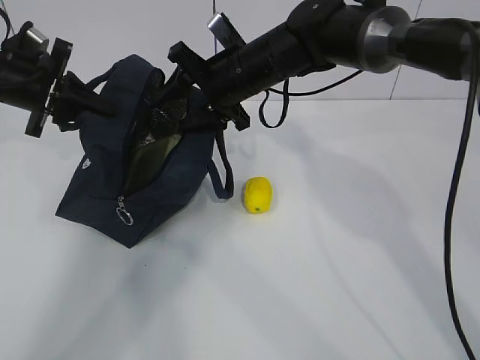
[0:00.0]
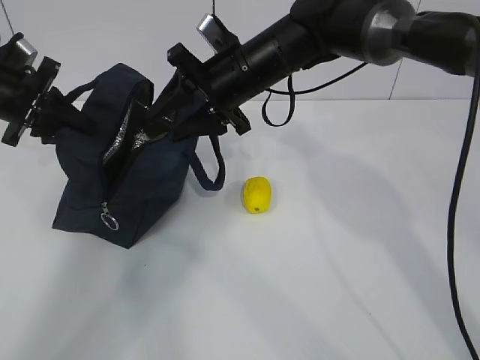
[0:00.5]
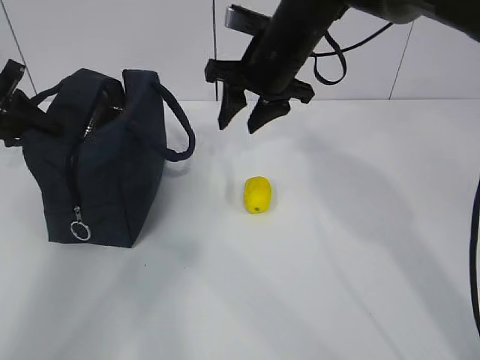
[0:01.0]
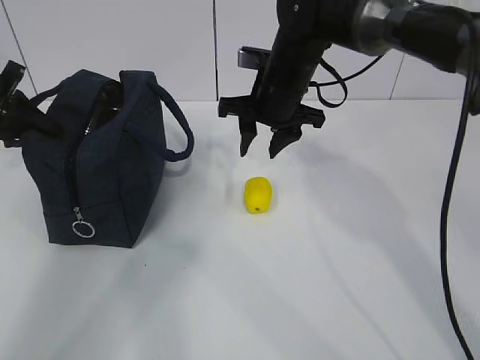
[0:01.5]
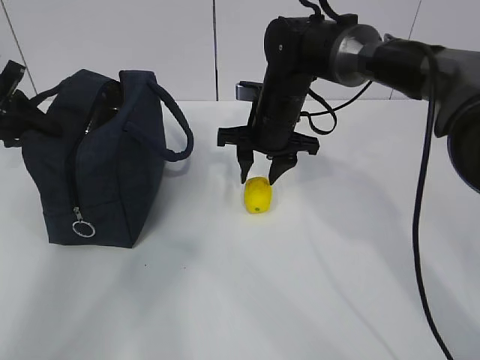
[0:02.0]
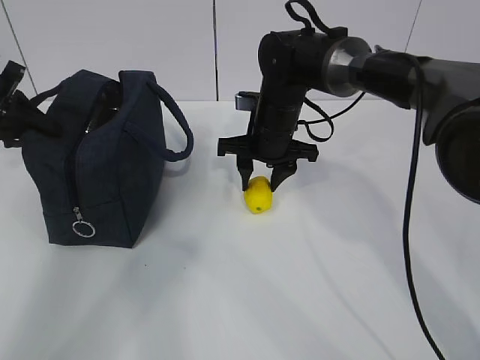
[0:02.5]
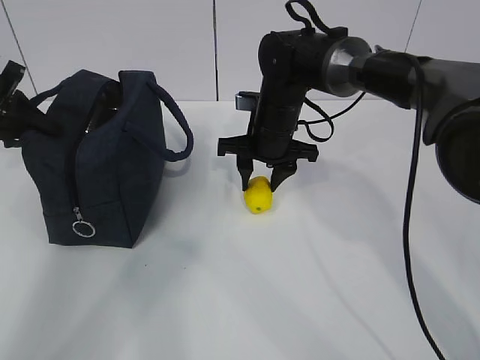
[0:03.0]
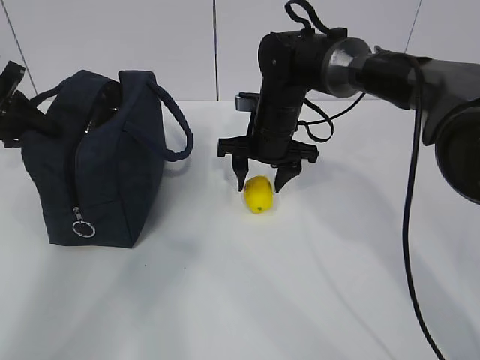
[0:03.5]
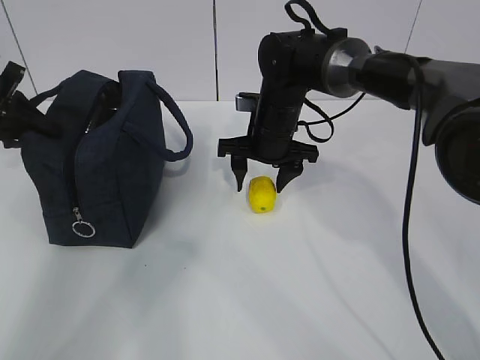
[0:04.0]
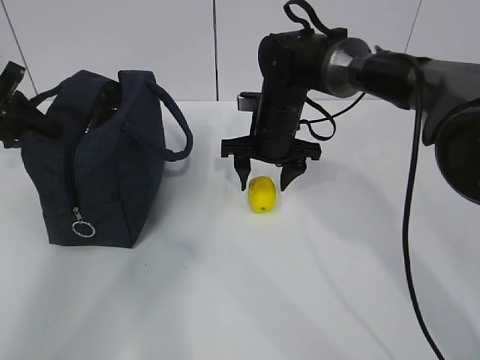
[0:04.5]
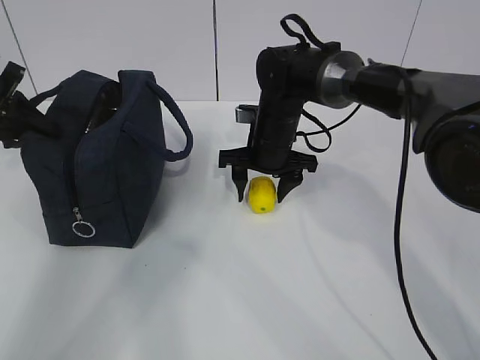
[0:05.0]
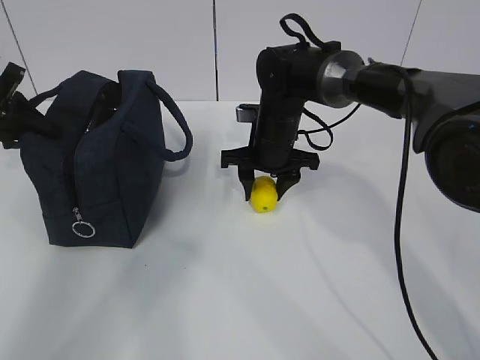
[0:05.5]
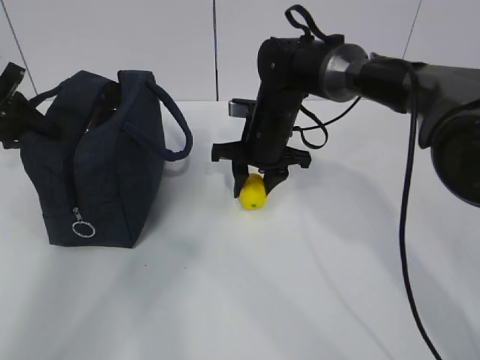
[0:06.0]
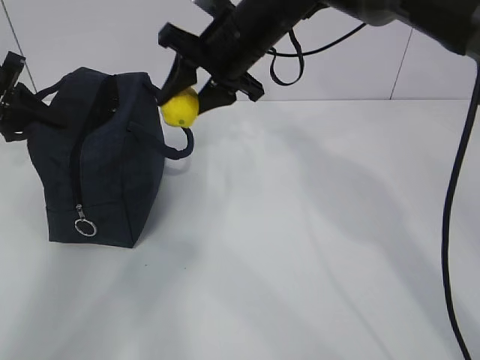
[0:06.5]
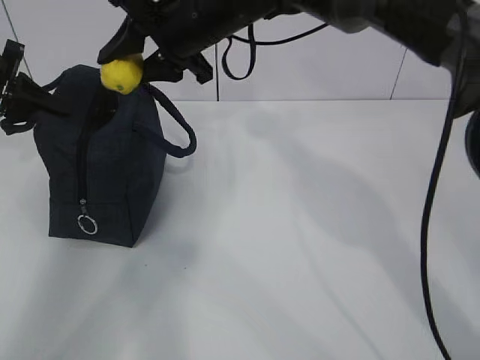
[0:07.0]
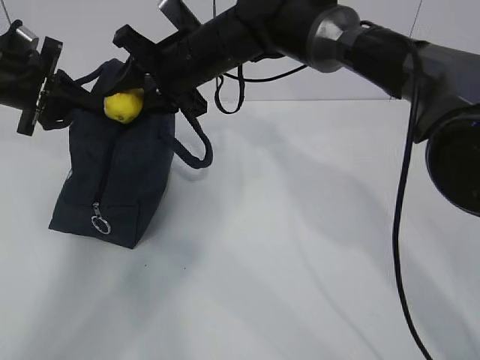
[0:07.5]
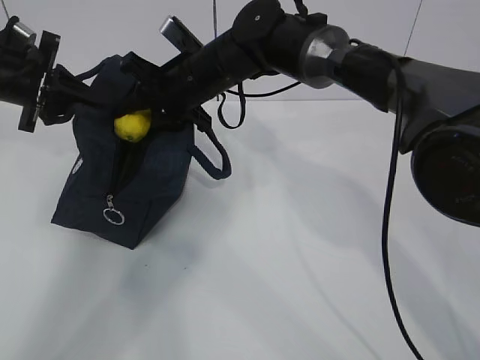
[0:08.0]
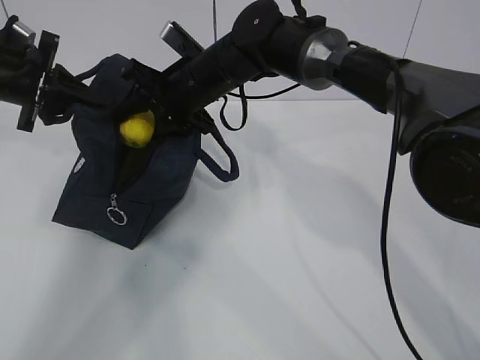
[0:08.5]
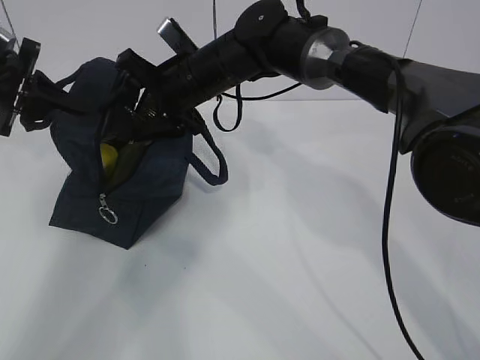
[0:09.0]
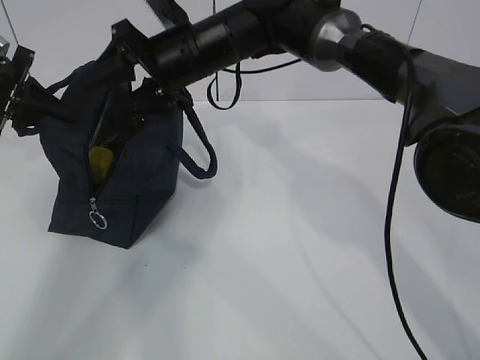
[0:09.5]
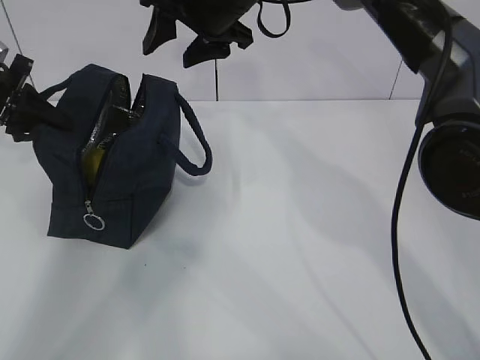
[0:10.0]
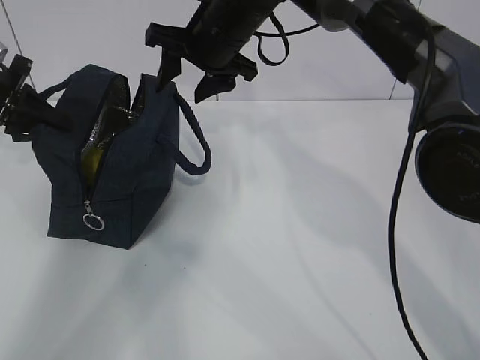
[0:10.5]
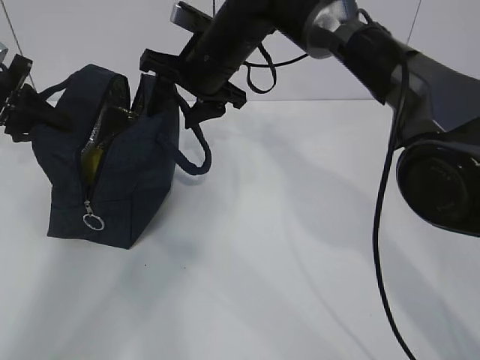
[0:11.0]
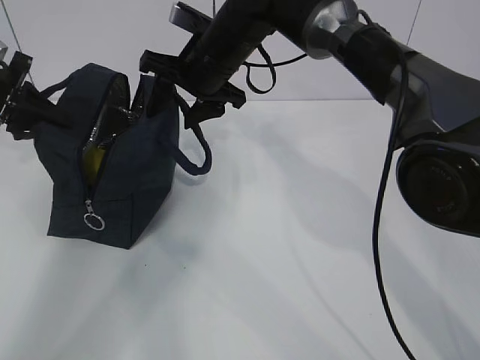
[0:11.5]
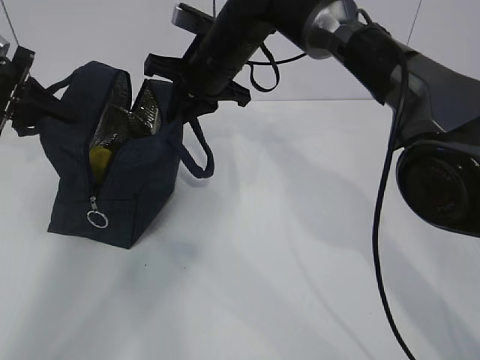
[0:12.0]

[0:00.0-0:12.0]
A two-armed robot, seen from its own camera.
Step, 0:00.0 to 0:02.0: Secure the lunch bag with your left hand.
Step, 0:02.5 to 0:05.0: Grab the lunch bag with your right hand.
Step, 0:05.5 to 0:07.5: Move the lunch bag to the right.
0:00.0 to 0:02.0: The right gripper moves downward, roughly 5 cm, while the left gripper is displaced to the left by approximately 5 cm.
0:02.0 to 0:04.0: The grippers make only small movements.
0:04.0 to 0:06.0: The right gripper closes up.
0:06.0 to 0:08.0: The right gripper goes about 10 cm to the left and upward; the left gripper travels to the right by some 5 cm.
0:08.0 to 0:10.0: The right gripper travels upward by roughly 10 cm.
0:10.0 to 0:12.0: The right gripper heads downward, covering some 5 cm, and closes up.

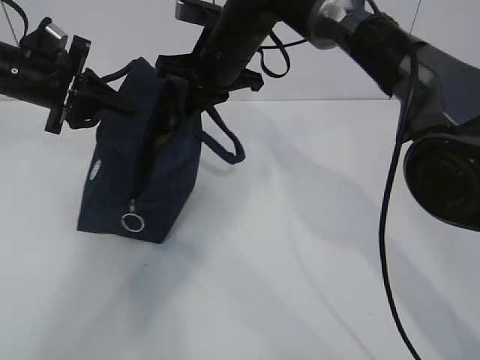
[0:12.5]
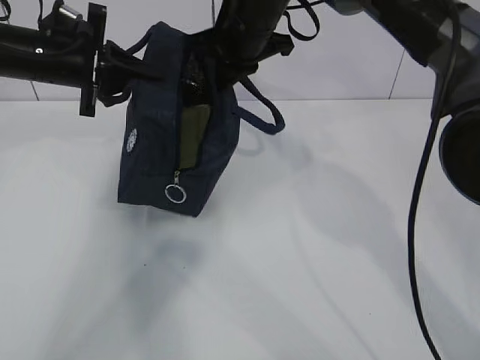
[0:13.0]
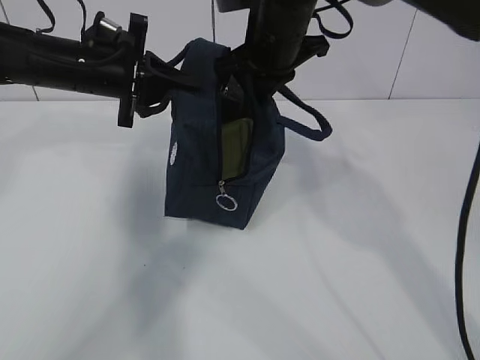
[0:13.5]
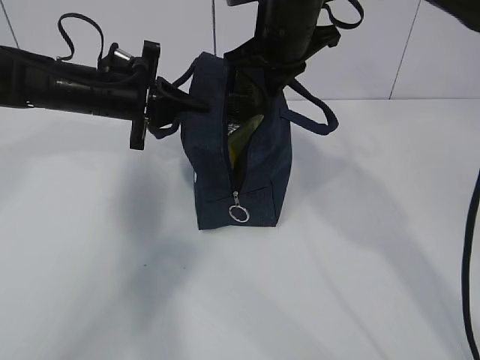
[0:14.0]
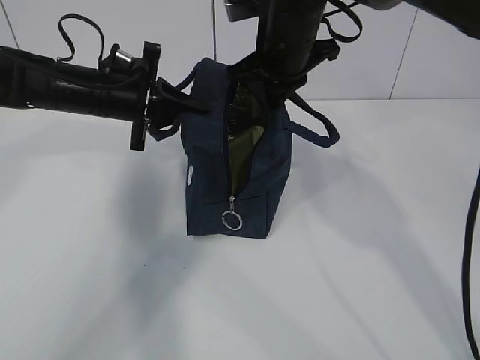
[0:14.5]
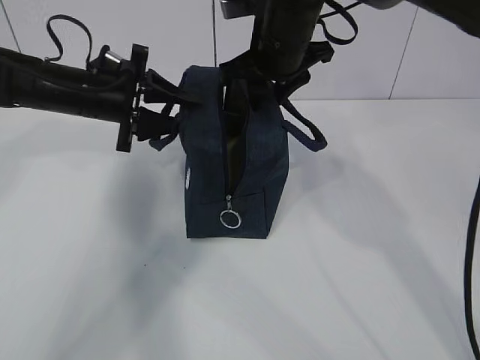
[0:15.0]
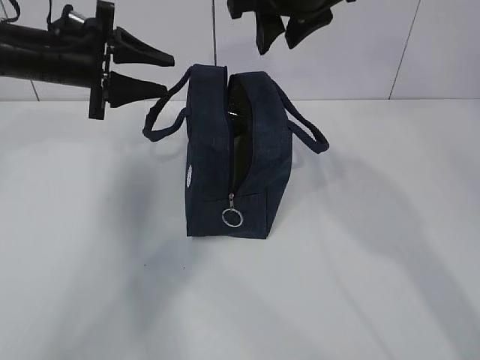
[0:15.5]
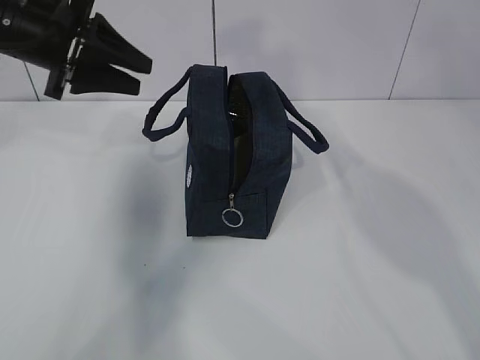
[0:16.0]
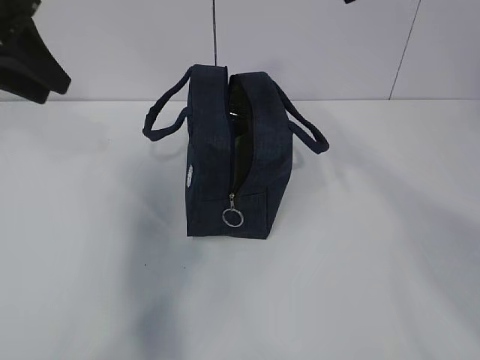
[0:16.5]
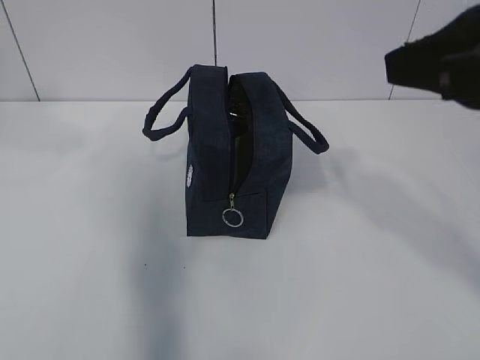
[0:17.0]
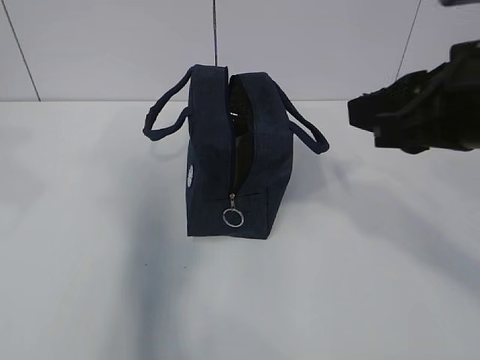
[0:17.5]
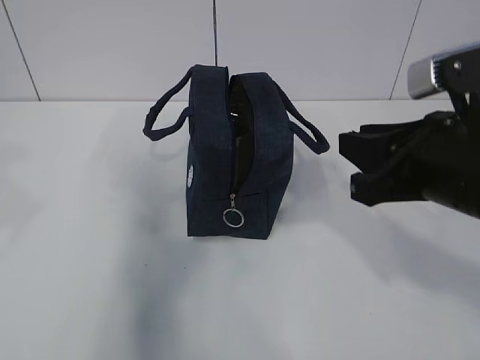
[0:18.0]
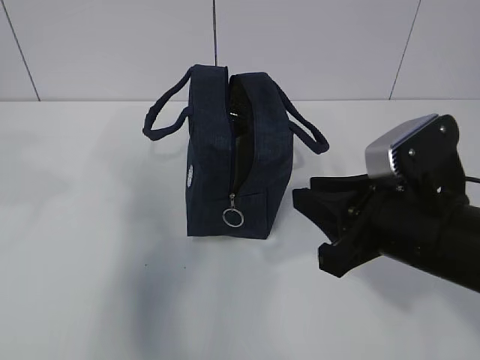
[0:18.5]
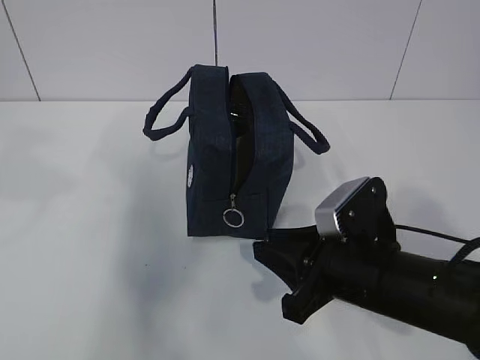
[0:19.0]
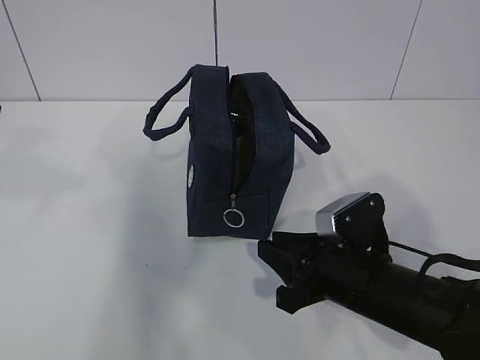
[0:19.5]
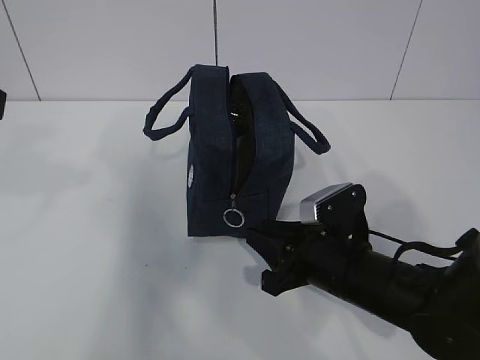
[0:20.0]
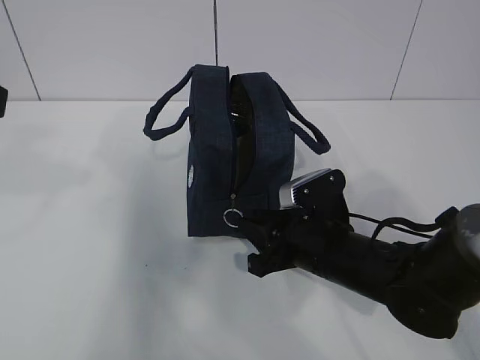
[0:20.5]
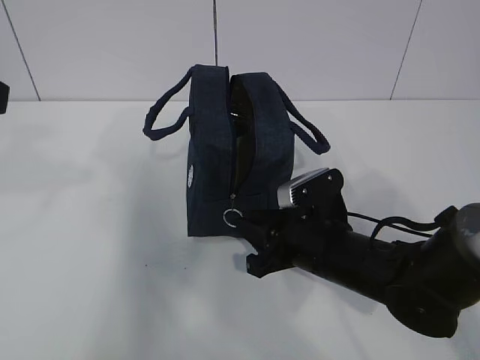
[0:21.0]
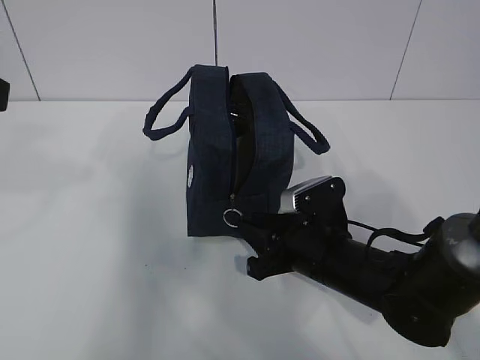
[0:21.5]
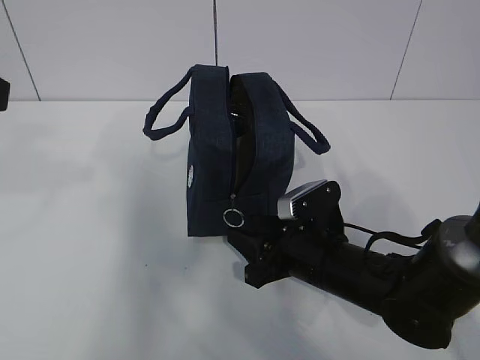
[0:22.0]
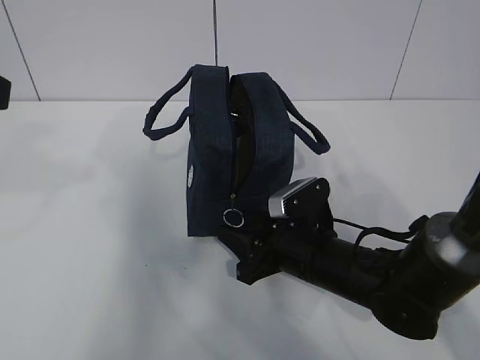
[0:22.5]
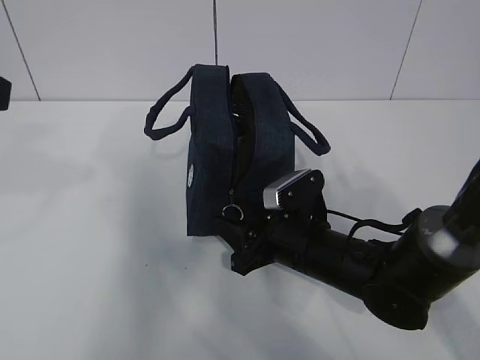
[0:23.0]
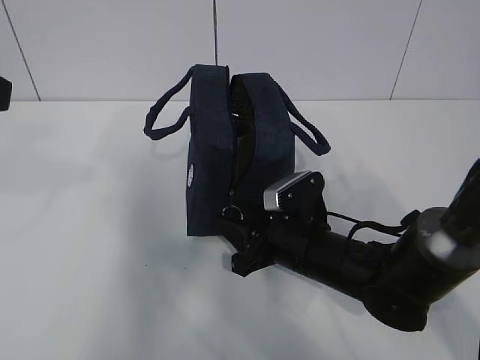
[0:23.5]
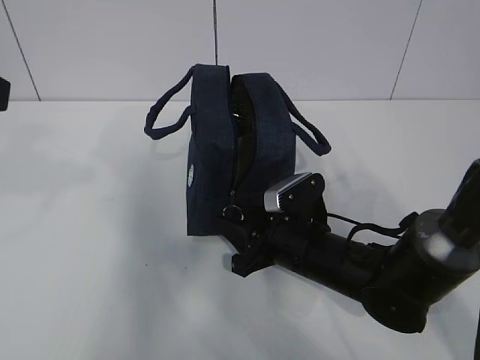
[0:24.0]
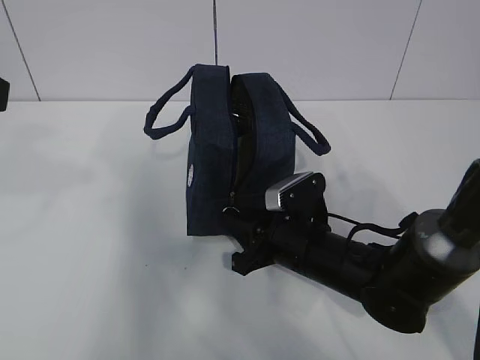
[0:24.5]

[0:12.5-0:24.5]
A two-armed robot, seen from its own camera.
Step, 0:12.5 to 0:24.0: Grab the lunch bag with your left hand.
0:12.5 to 0:14.5: The grippers both shift to the right by approximately 10 cm.
0:14.5 to 0:16.5: The left gripper is displaced upward, to the left and backward by about 20 cm, and opens its fingers. The right gripper shifts some 25 cm backward and upward, and opens its fingers.
0:16.5 to 0:18.5: The right gripper shifts approximately 25 cm downward. Meanwhile the left gripper travels backward by some 15 cm.
0:18.5 to 0:20.5: The right gripper heads downward and forward, covering about 15 cm.
0:20.5 to 0:22.5: The grippers stay close to where they were, moving slightly.
0:22.5 to 0:24.5: The right gripper closes up.

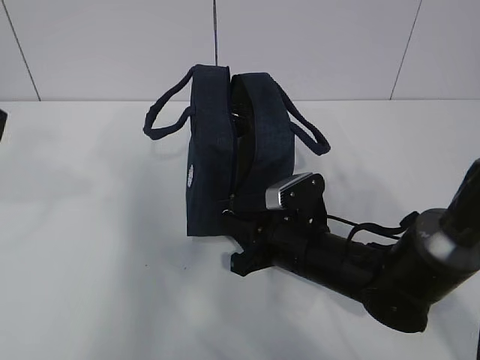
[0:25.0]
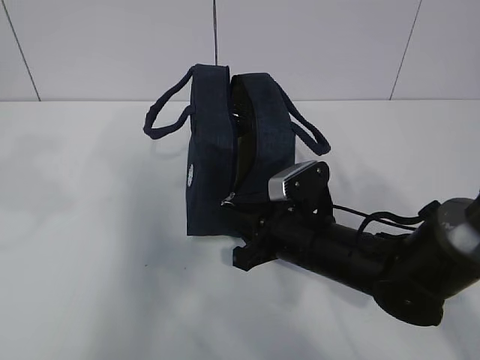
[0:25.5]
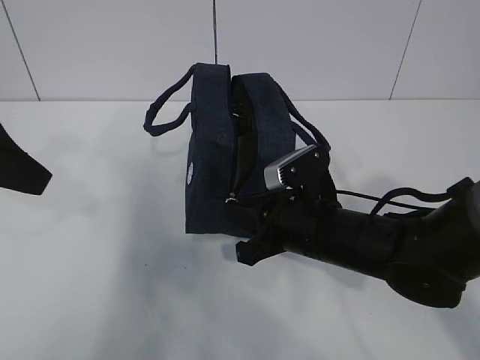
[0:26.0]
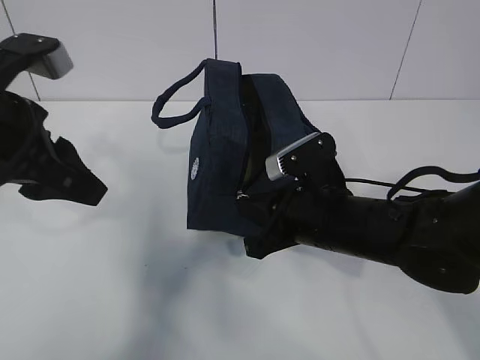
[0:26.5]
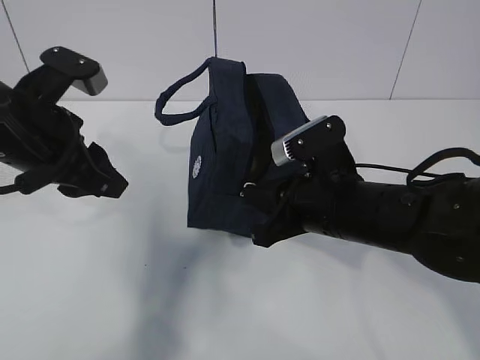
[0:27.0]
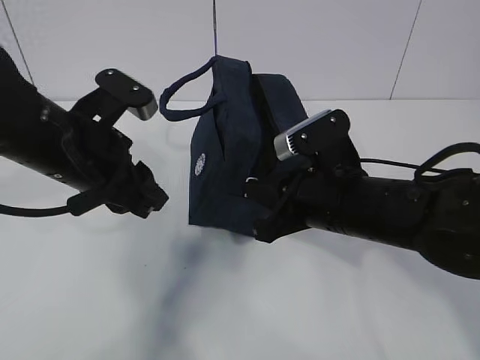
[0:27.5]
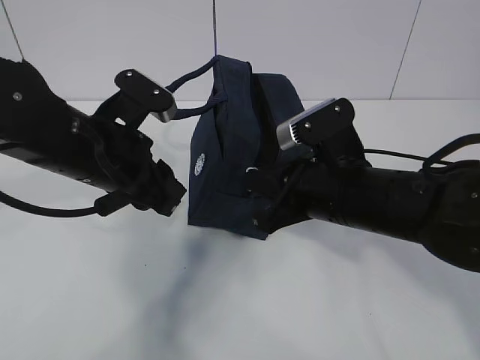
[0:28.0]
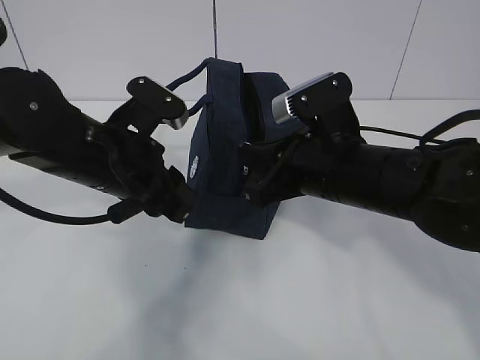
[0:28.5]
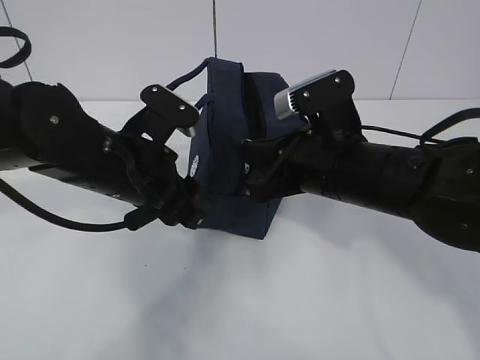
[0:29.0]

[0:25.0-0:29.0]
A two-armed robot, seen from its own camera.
0:25.0 to 0:27.0: The left gripper goes some 15 cm downward, forward and to the right, while the right gripper shifts some 10 cm upward.
0:27.0 to 0:29.0: The left gripper goes approximately 10 cm to the right and downward.
